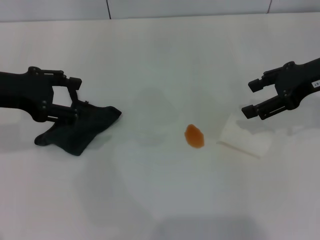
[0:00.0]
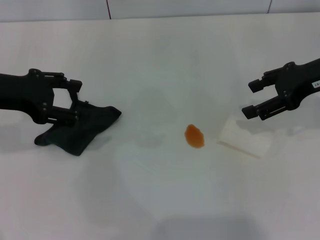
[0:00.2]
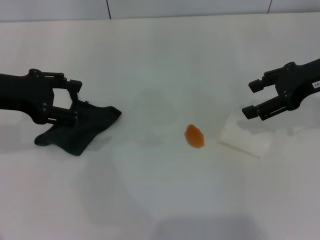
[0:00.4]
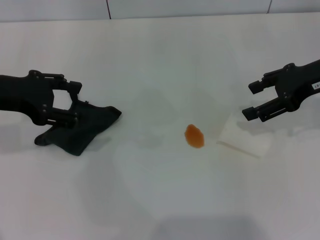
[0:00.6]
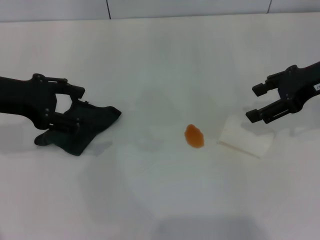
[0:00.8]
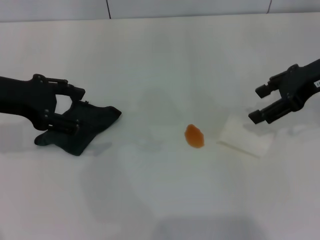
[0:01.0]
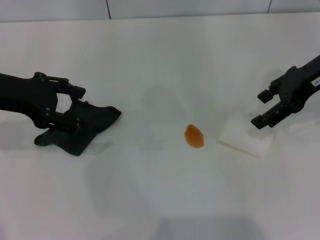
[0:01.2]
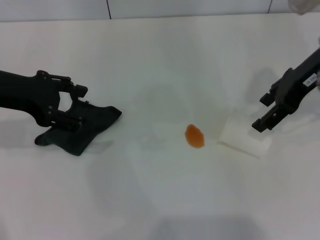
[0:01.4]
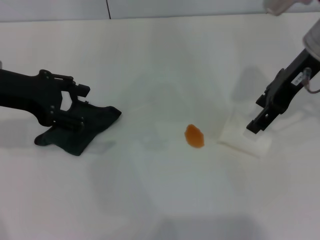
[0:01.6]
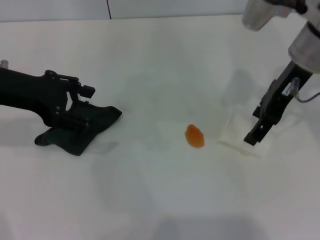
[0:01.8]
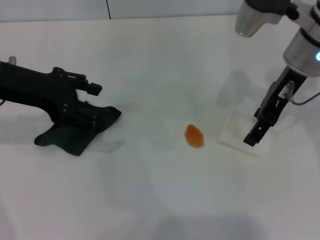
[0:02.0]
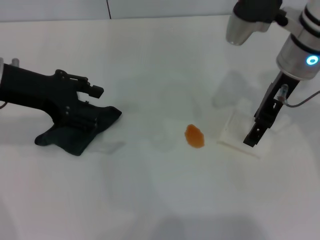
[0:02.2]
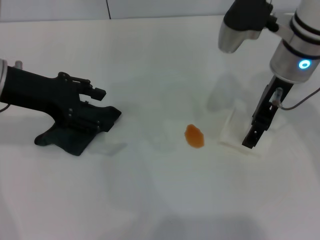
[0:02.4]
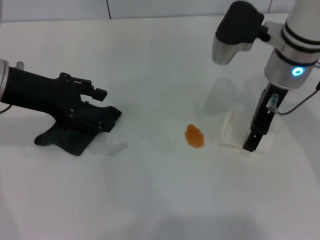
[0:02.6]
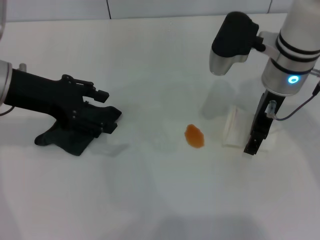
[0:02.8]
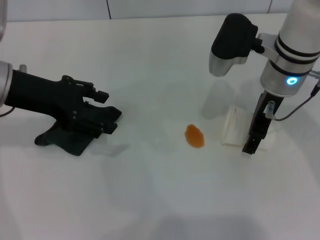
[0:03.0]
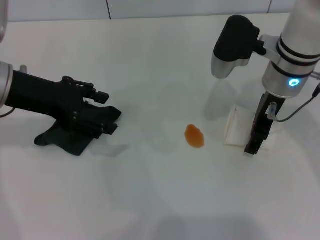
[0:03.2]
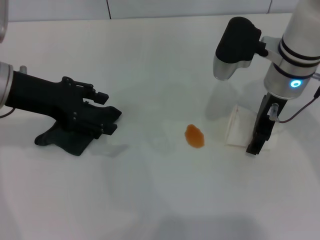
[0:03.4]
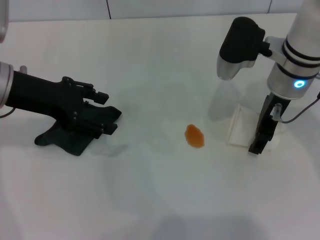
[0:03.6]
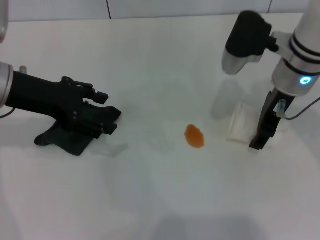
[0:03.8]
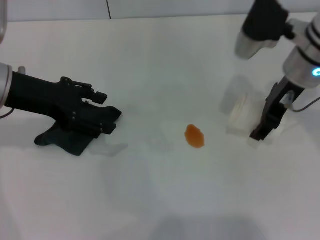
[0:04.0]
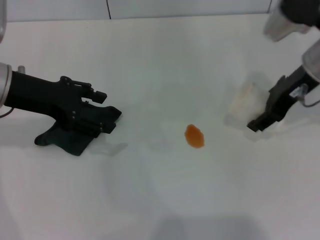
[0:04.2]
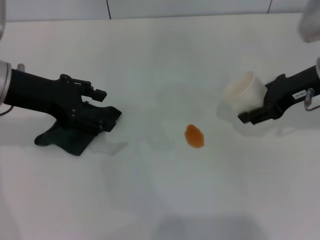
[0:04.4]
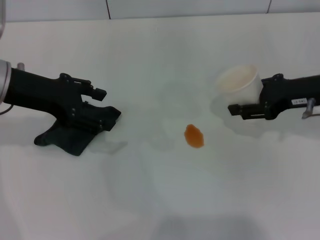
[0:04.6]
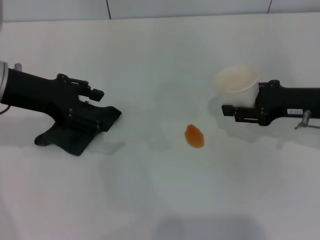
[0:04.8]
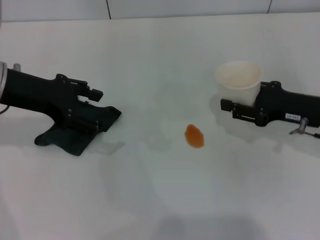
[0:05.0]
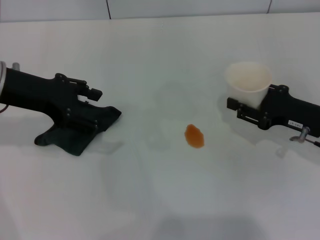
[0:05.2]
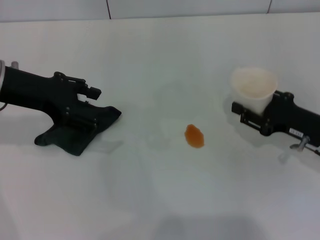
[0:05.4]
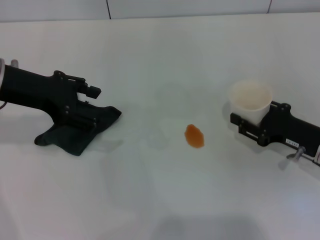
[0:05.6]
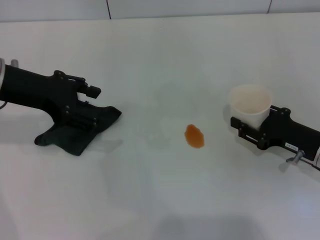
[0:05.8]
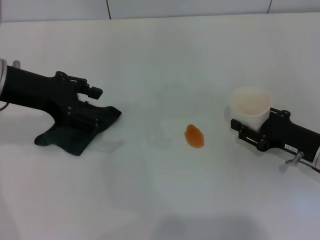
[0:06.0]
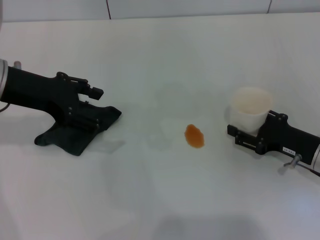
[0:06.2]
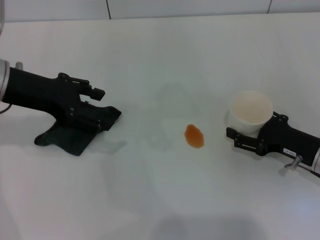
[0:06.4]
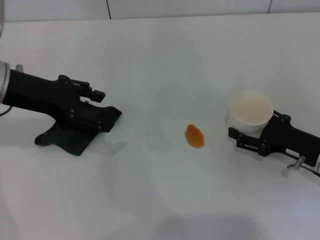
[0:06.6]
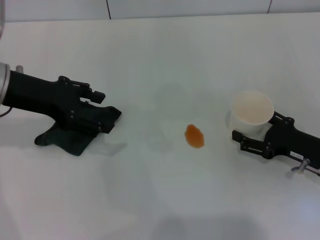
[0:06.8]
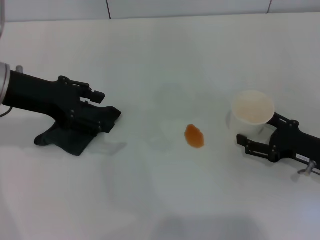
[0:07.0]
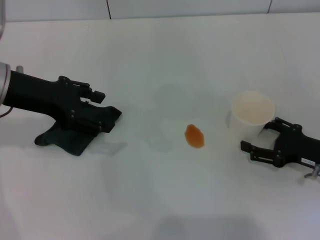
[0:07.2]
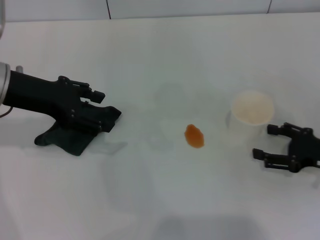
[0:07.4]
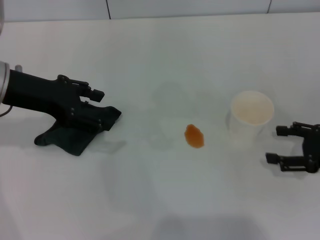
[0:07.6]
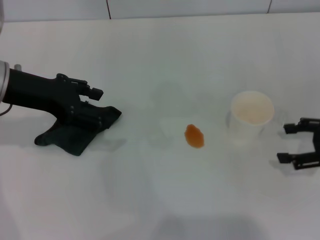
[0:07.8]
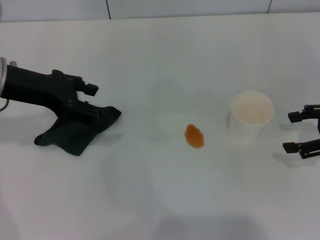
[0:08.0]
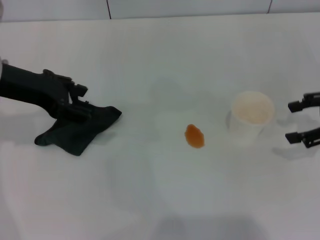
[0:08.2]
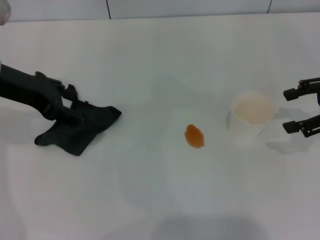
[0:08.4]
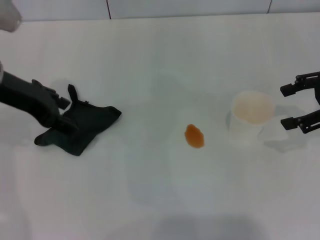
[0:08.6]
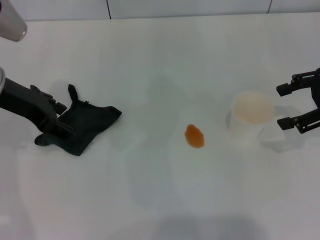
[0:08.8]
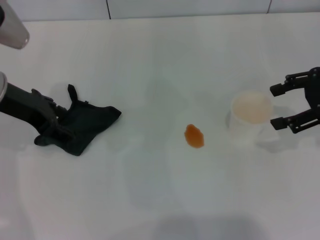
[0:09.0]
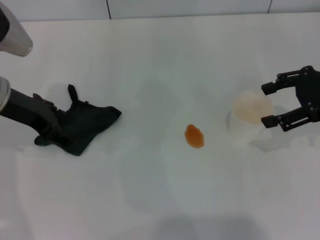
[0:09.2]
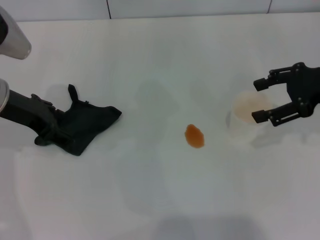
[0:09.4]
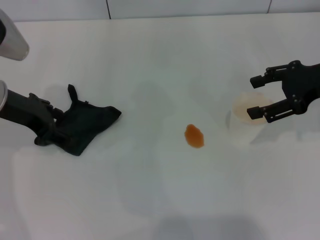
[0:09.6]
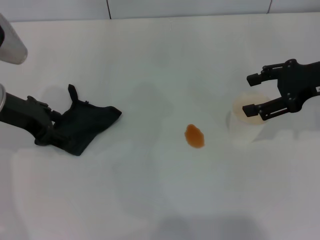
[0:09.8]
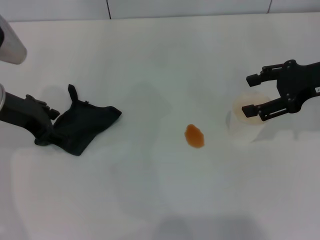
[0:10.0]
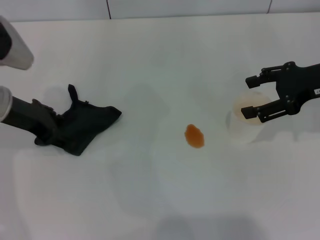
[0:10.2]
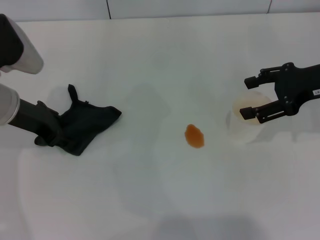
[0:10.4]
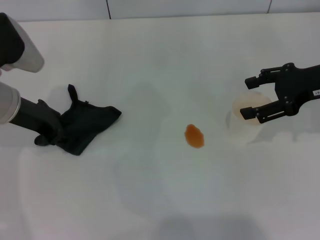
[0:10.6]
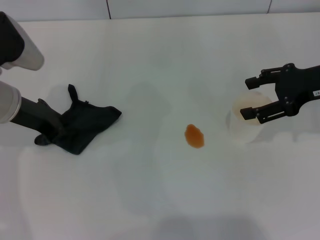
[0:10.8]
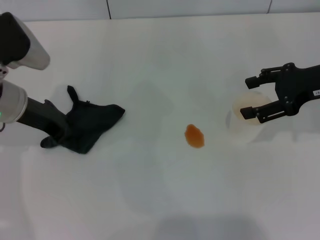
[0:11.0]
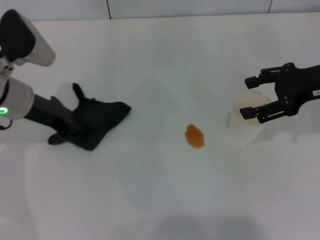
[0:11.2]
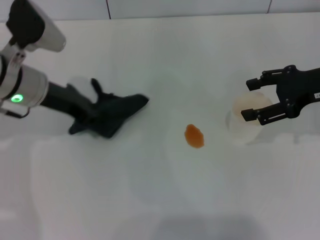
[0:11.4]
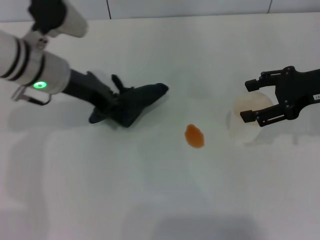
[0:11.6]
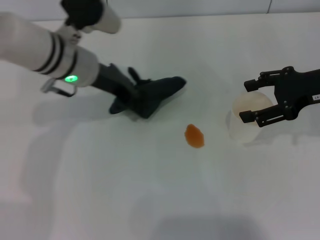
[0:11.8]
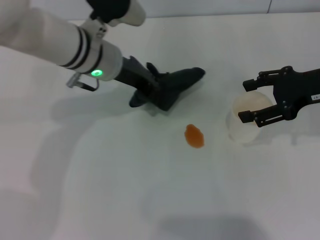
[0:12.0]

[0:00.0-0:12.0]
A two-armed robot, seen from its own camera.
Step, 0.0 to 3.4 s: Grasp the paper cup with the right gripper.
Step, 3.6 to 7.4 s: Stand the paper cup upright with the right gripper.
Step, 7.8 to 10.8 s: Grasp the rag with the left gripper.
0.0 to 1.6 s: The right gripper goes about 5 cm to the left.
1.6 to 3.0 s: The right gripper travels downward and to the left by approximately 10 cm.
3.0 to 4.4 s: The right gripper heads to the right, covering about 10 cm, and closes.
4.4 to 6.0 s: The right gripper travels downward and backward by roughly 15 cm.
6.0 to 7.6 s: The right gripper goes roughly 5 cm to the right, and opens its fingers.
7.6 to 9.0 s: The right gripper shifts approximately 15 cm upward and forward.
9.0 to 10.4 s: The grippers move only a little.
10.4 to 12.0 s: The left gripper moves to the right, roughly 15 cm, and closes its fingers.

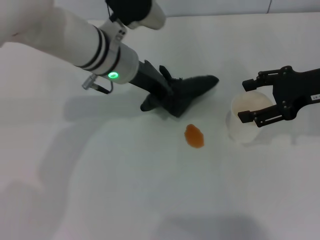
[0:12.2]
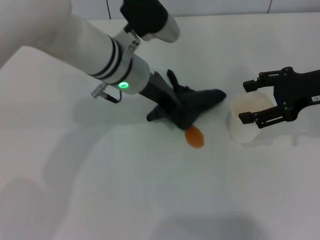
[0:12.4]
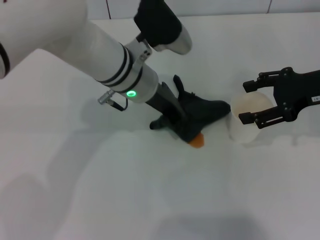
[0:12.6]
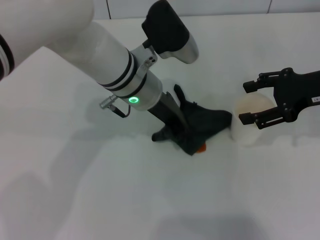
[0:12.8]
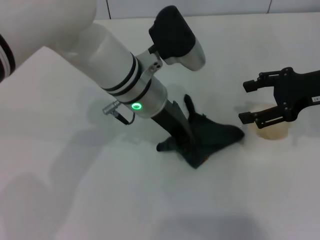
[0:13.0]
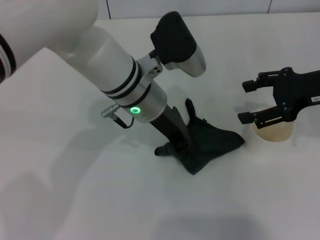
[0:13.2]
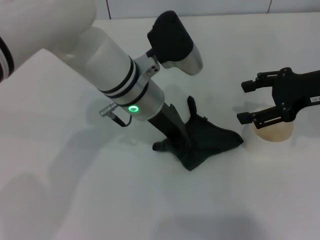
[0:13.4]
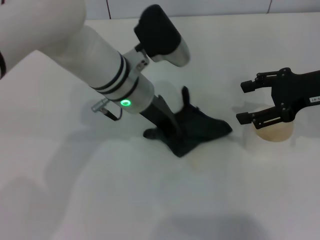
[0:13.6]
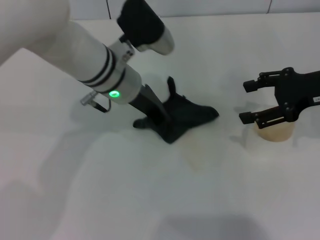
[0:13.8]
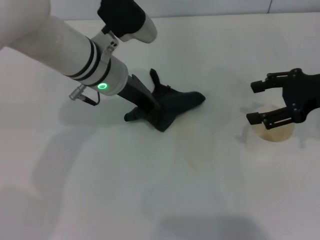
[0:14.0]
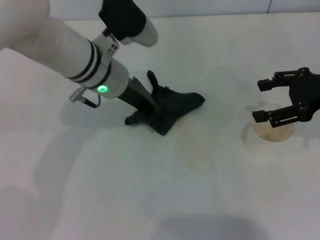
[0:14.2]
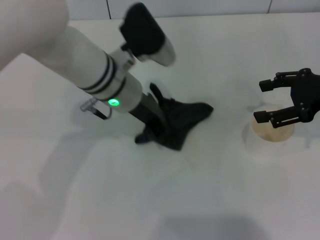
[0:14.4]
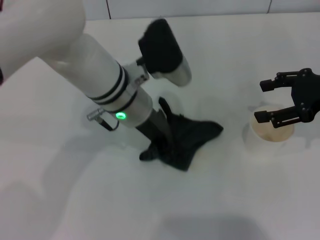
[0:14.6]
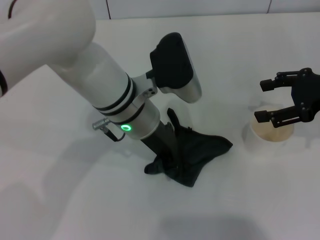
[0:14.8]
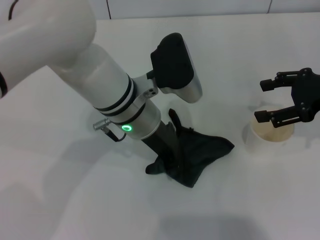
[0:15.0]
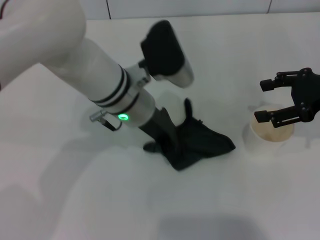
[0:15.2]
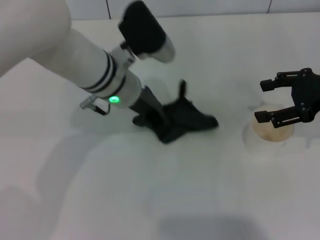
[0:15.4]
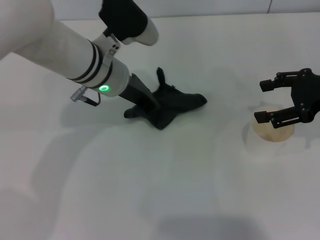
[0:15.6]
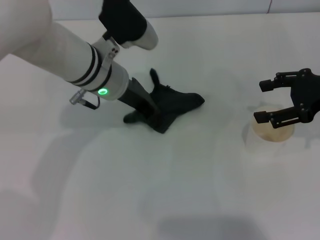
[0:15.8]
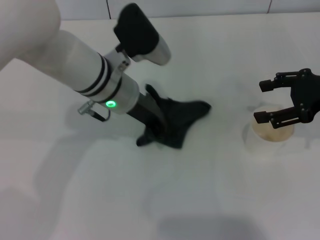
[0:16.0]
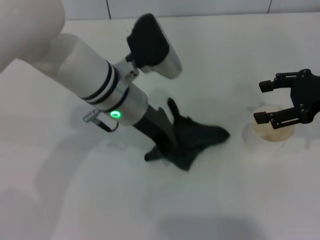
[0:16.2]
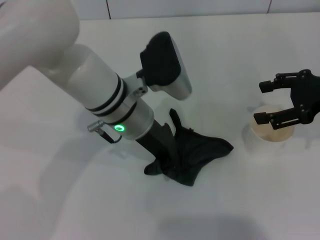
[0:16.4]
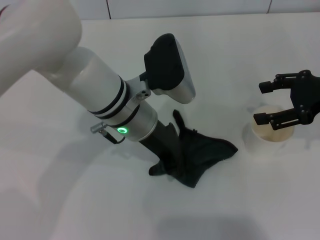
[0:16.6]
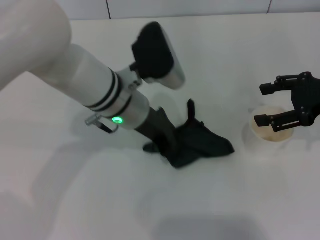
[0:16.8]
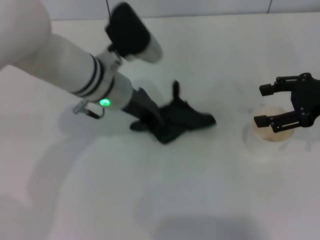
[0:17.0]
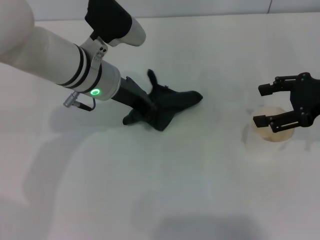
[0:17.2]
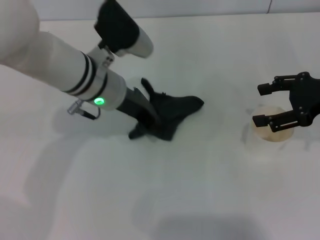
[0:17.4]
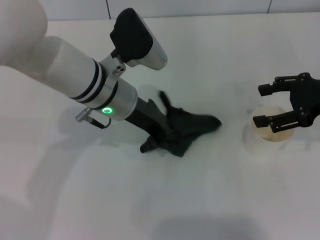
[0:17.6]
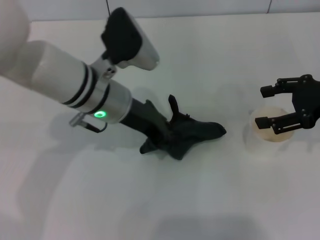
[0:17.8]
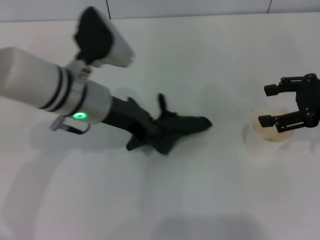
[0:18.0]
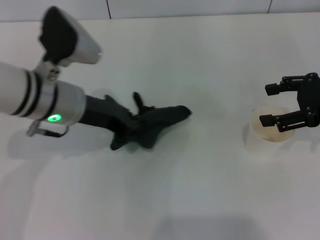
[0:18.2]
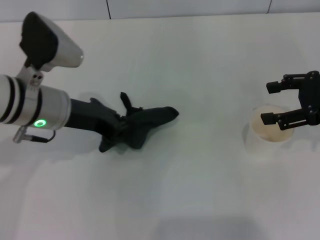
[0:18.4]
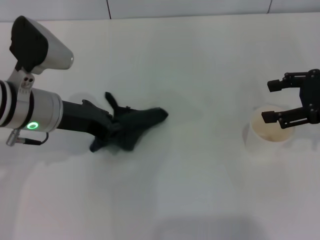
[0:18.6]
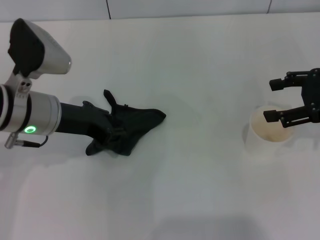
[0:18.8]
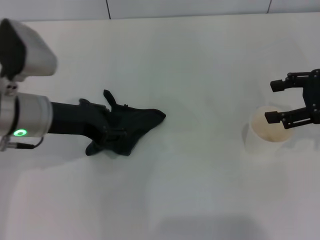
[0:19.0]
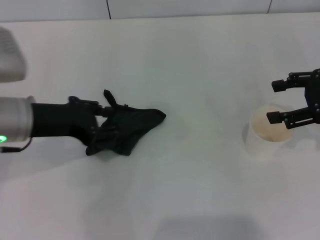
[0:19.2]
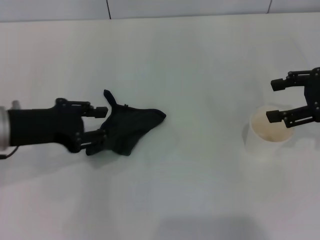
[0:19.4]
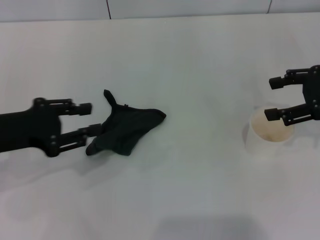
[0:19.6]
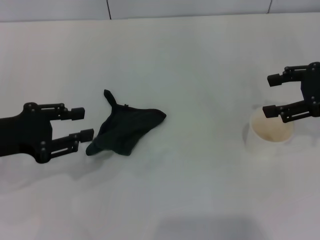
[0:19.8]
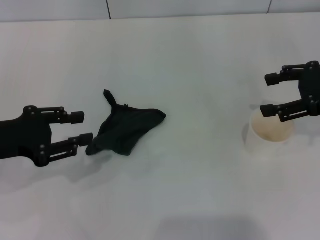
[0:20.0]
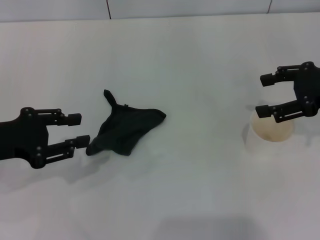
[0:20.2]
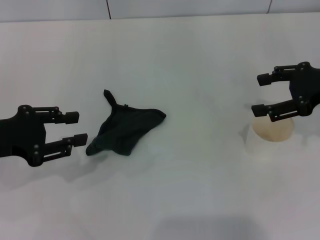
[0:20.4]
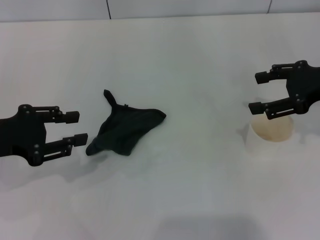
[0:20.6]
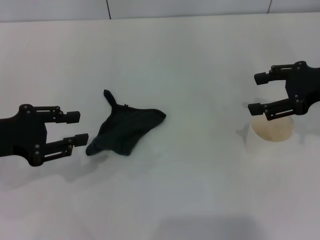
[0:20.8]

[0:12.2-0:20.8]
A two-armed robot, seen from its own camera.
Step, 12.2 to 16.8 s: Wipe the stains off the table with the left gripper.
Step, 17.0 to 19.4 s: Place the rag on the table with the left gripper.
12.2 to 13.6 s: There are only small adjustments of the grippers.
16.6 to 18.0 s: The left gripper heads to the left, covering about 5 cm.
18.0 to 19.4 s: The left gripper shifts roughly 15 cm to the left and backward, and opens up.
19.4 to 20.8 s: The left gripper ends up some 5 cm from where it was.

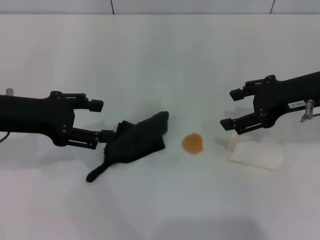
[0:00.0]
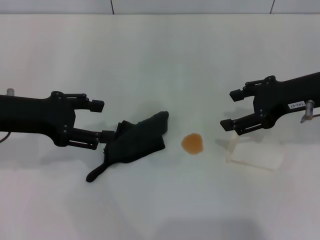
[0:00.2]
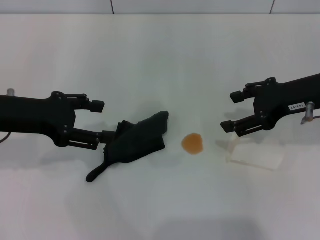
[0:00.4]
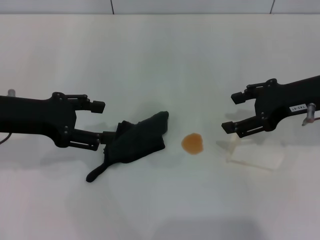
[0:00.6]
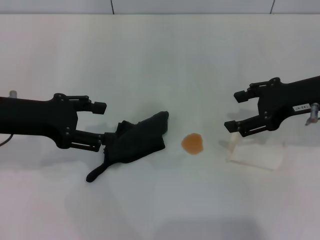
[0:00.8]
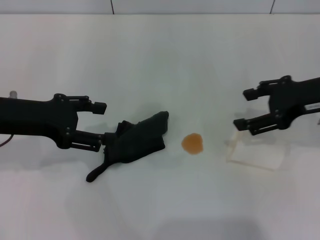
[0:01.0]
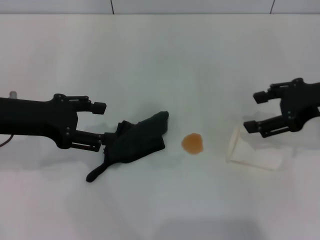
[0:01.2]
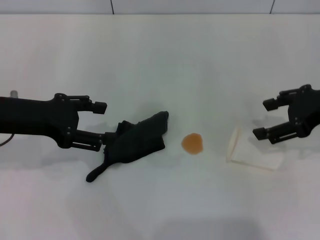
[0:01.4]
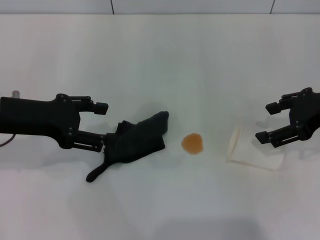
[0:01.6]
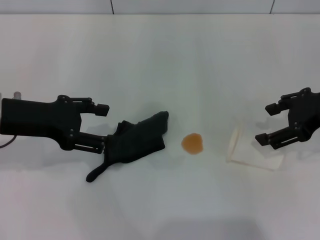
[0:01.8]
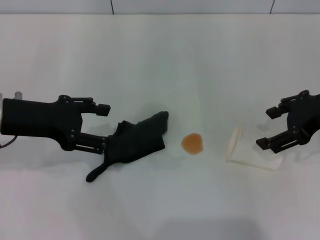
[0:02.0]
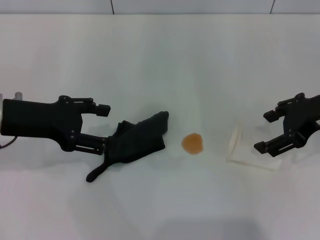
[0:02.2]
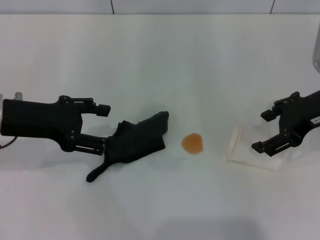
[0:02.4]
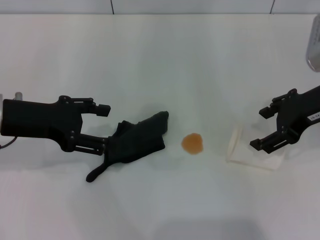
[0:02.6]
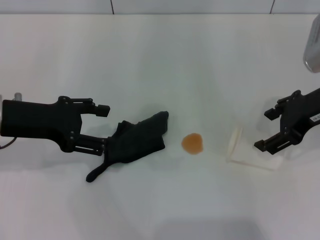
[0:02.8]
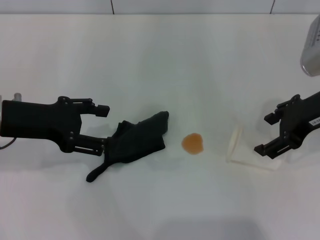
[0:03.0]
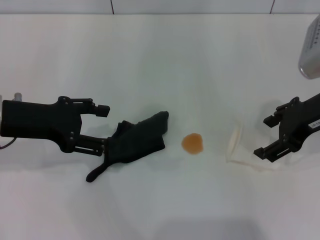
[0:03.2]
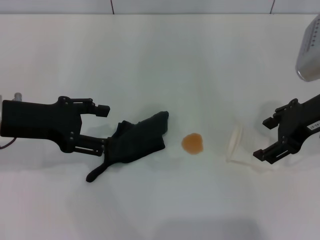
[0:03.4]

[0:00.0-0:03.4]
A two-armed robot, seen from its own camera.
0.0 to 1.6 s: The grippers make only small movements.
1.6 to 3.4 s: The right gripper changes place by approximately 5 cm.
